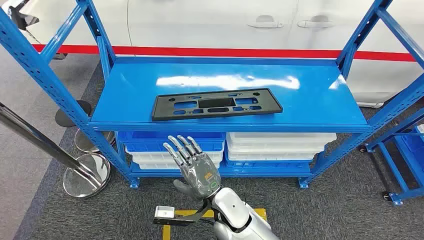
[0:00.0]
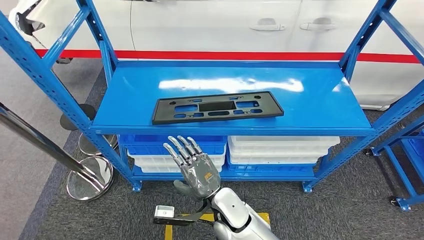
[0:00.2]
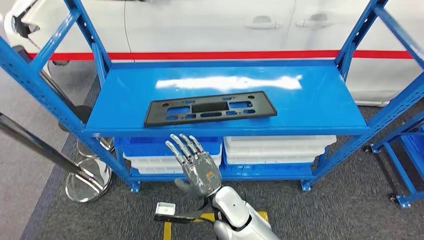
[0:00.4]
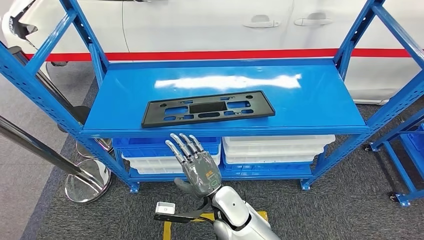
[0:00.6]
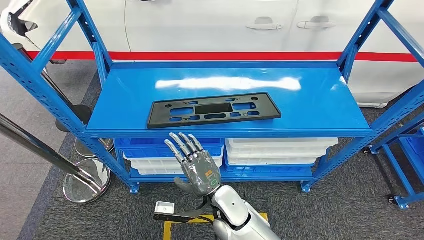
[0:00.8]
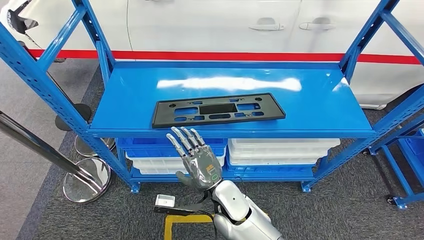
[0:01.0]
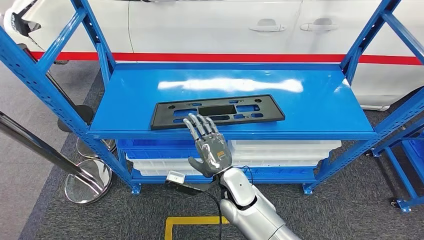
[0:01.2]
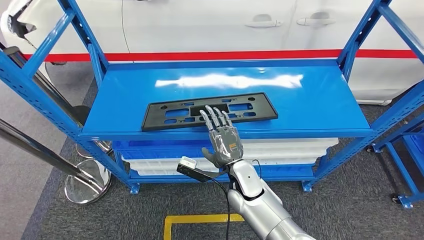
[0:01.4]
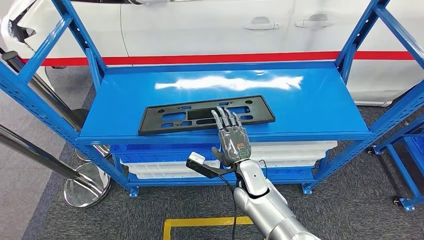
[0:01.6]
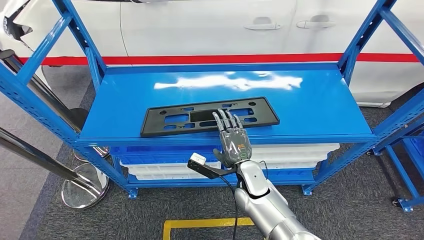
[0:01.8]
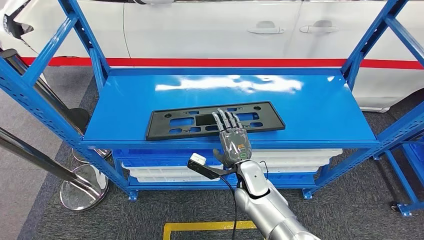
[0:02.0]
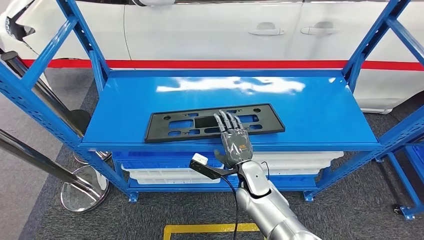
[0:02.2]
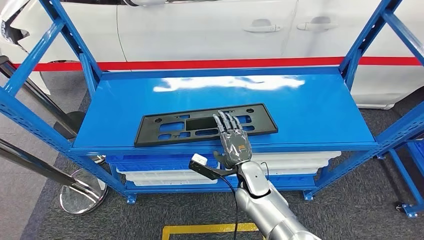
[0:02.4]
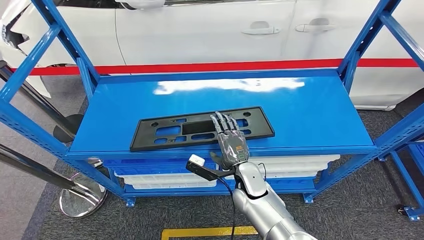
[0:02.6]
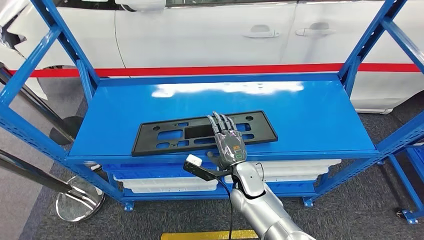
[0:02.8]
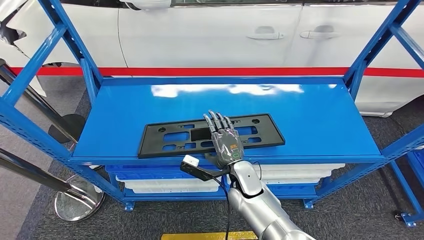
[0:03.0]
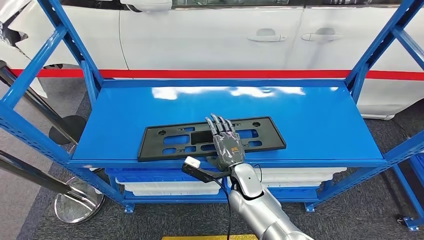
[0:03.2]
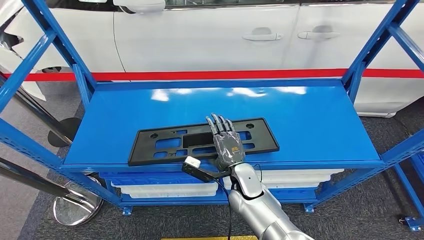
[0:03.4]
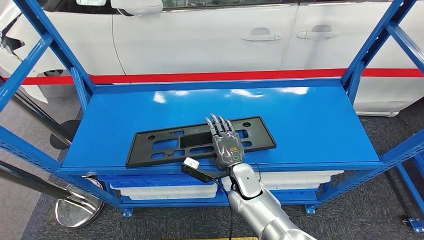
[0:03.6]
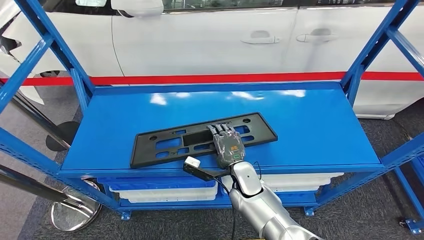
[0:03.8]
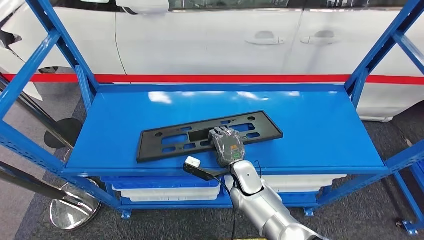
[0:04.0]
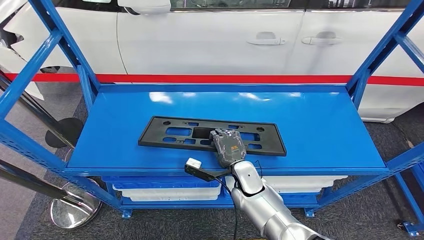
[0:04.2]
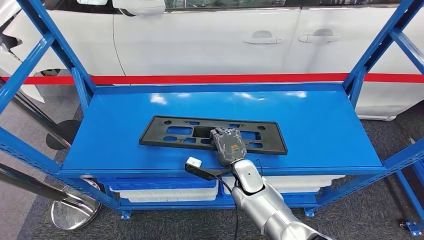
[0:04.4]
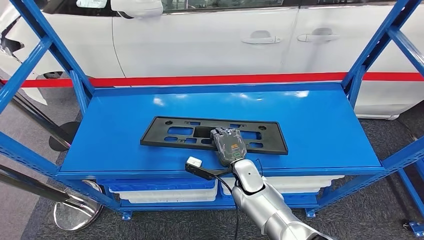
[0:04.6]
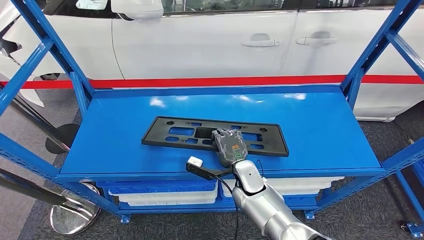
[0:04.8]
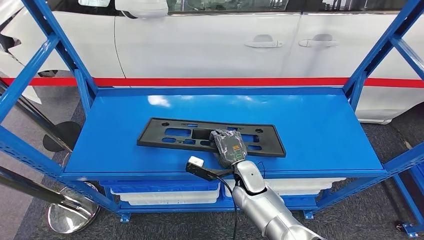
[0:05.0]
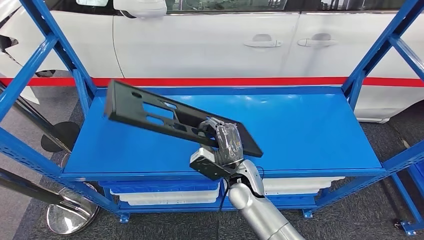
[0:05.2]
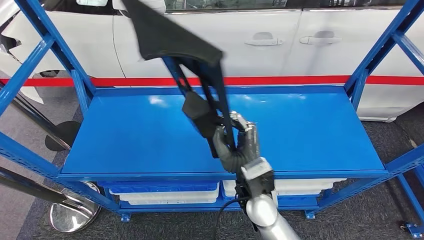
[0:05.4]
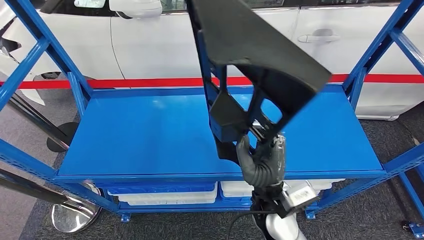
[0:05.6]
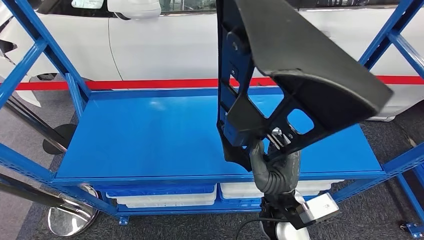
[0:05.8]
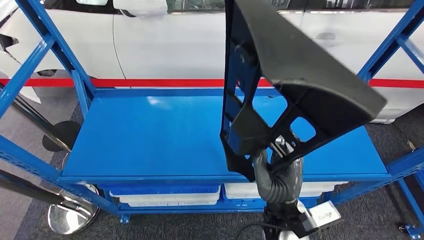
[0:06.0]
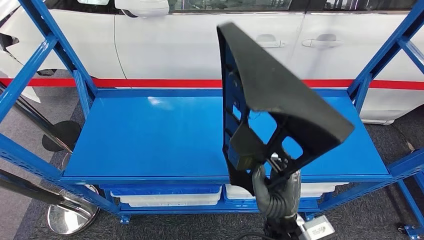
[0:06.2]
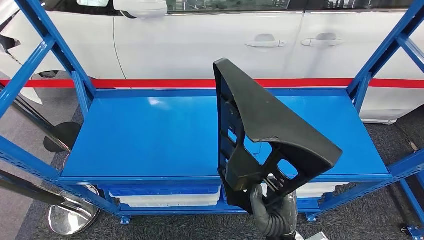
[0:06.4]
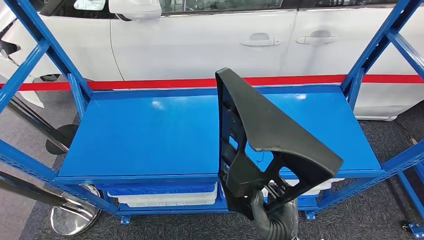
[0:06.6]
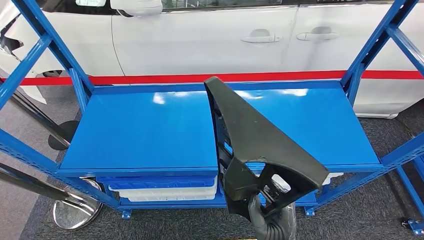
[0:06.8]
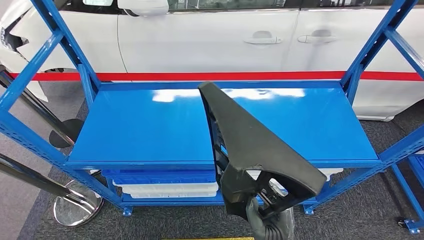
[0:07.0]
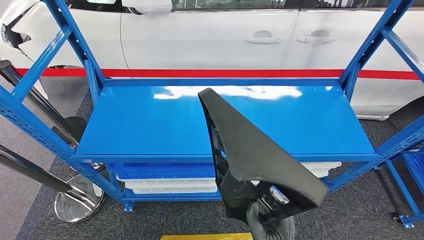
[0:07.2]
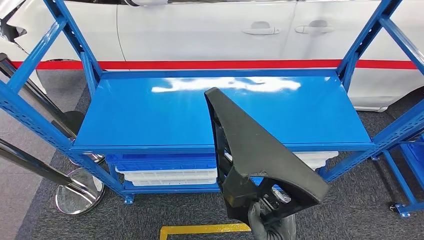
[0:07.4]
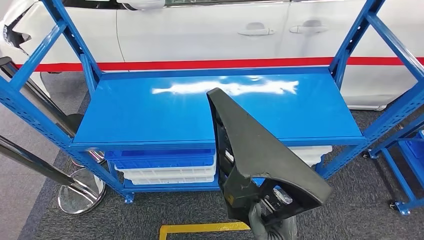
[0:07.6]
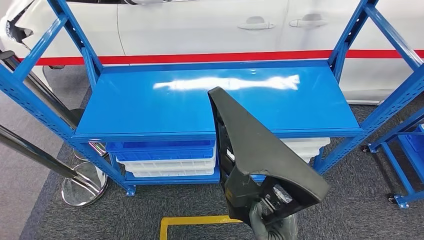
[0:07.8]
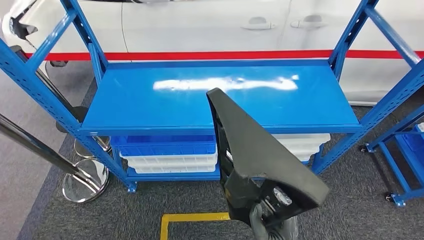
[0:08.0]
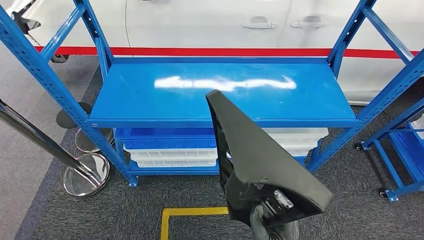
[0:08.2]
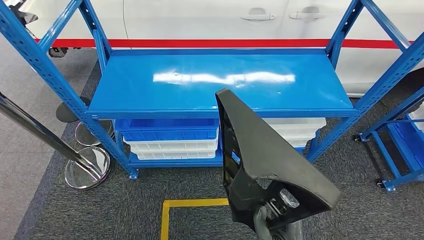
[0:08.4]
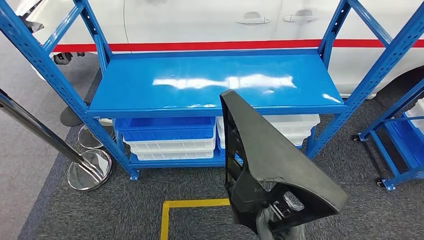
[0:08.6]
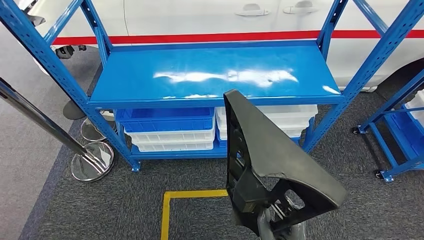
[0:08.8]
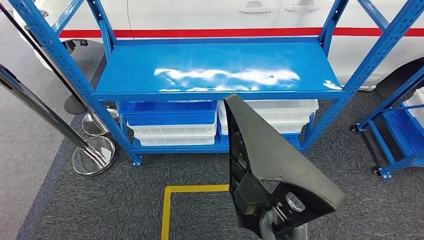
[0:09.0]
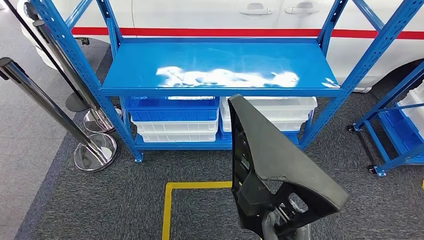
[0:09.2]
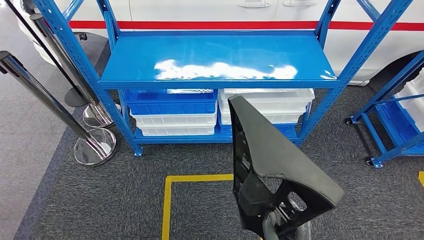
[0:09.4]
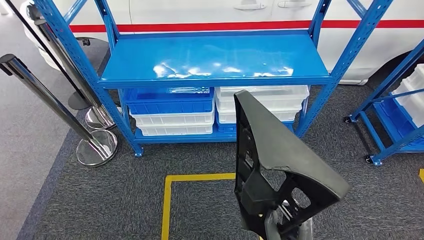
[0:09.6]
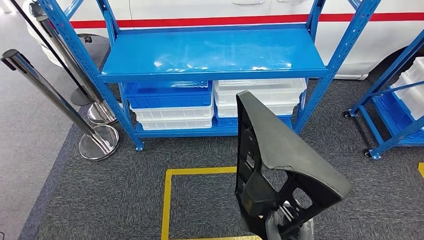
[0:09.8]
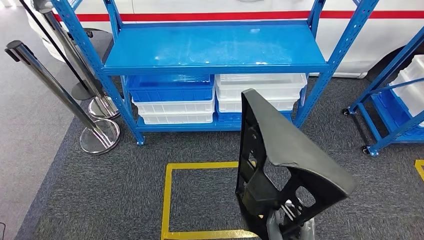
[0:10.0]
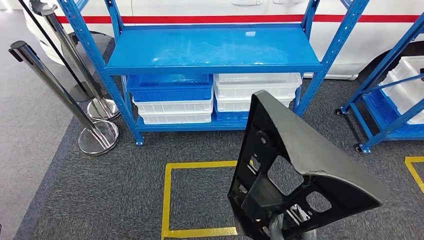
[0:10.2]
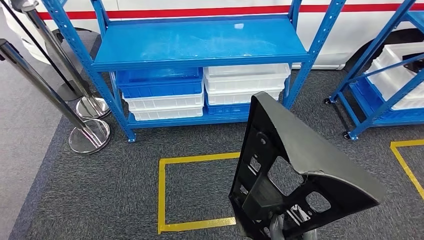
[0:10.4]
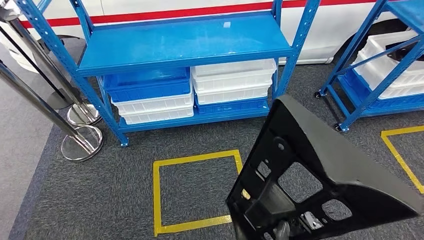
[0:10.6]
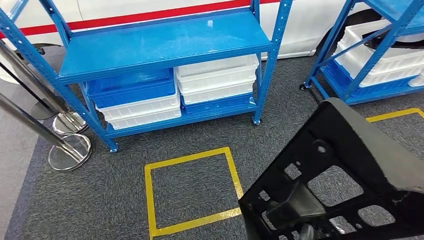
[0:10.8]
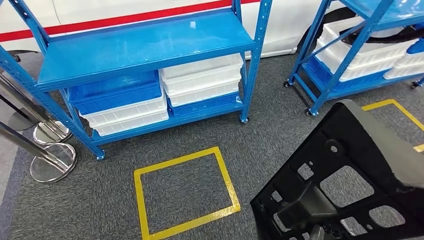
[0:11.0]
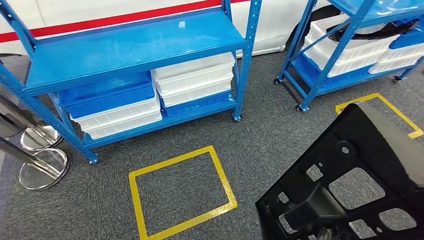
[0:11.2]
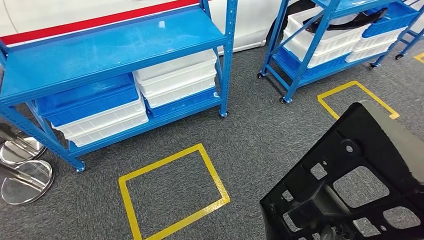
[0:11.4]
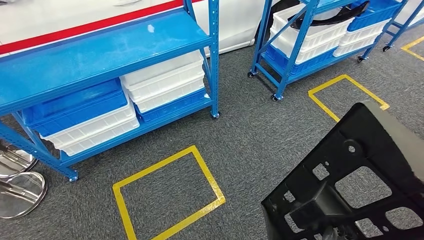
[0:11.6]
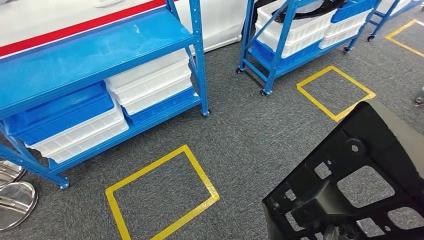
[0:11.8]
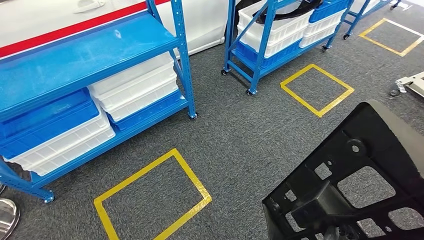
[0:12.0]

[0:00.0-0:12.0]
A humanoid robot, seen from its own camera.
Step, 0:00.0 to 0:06.2: Pick up the large material from the shelf.

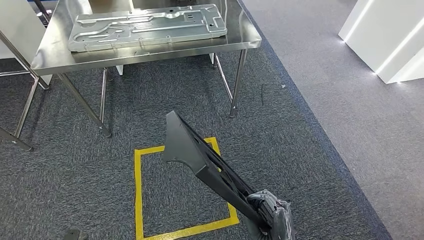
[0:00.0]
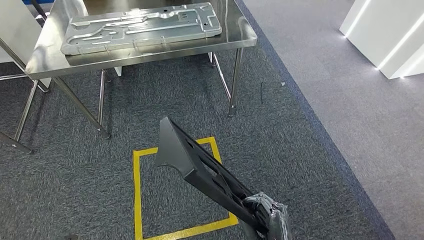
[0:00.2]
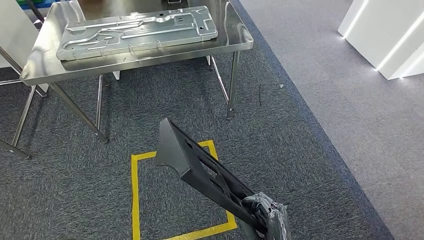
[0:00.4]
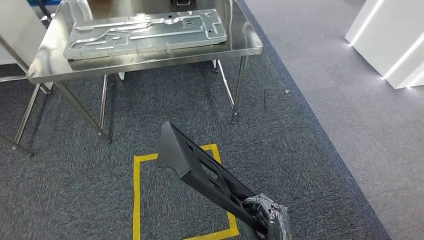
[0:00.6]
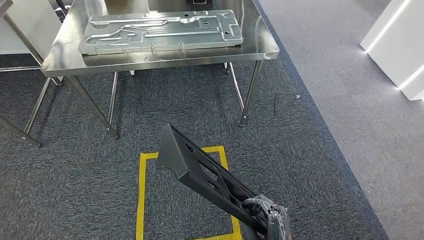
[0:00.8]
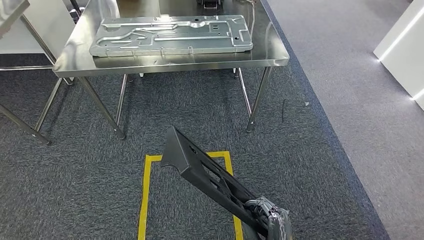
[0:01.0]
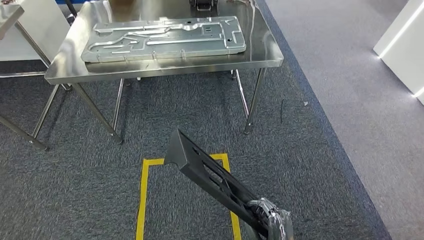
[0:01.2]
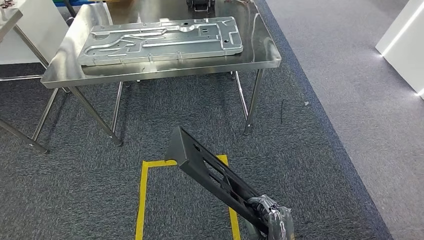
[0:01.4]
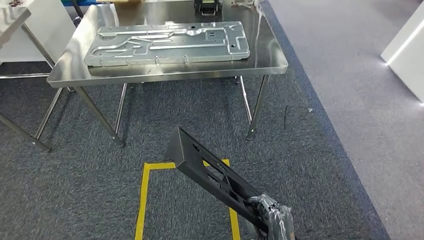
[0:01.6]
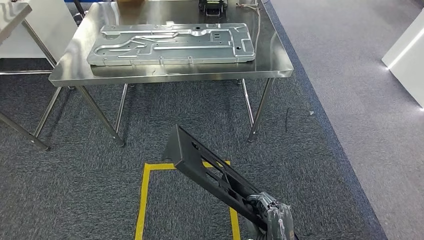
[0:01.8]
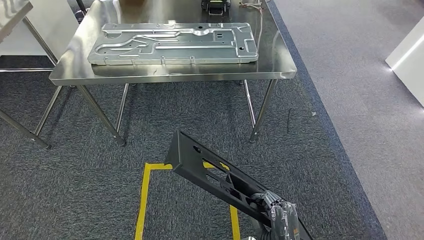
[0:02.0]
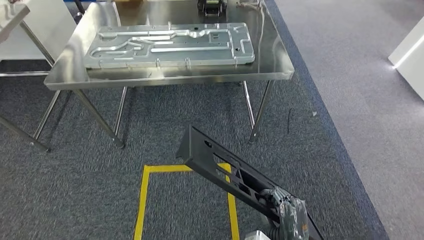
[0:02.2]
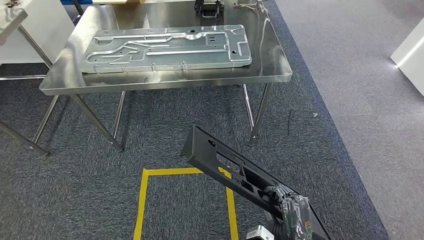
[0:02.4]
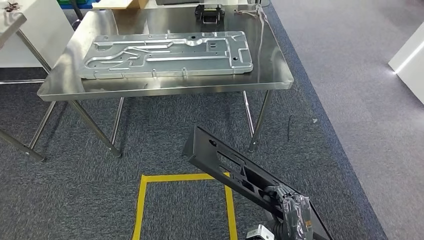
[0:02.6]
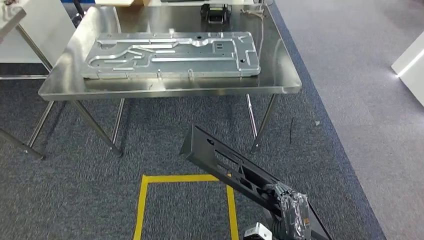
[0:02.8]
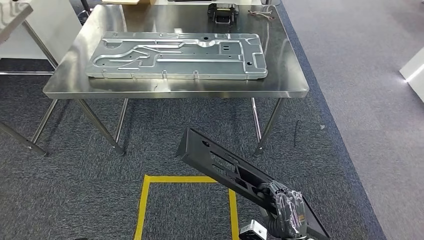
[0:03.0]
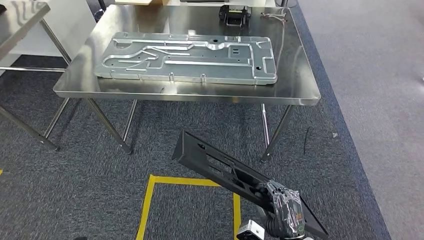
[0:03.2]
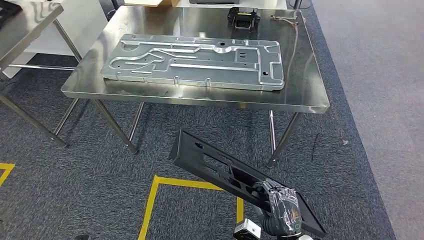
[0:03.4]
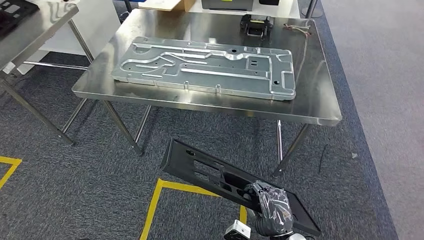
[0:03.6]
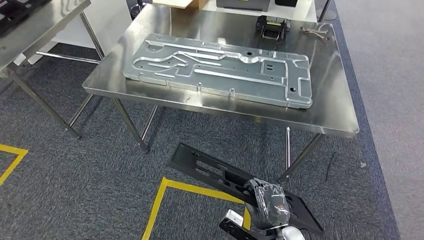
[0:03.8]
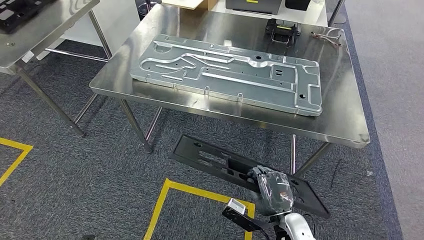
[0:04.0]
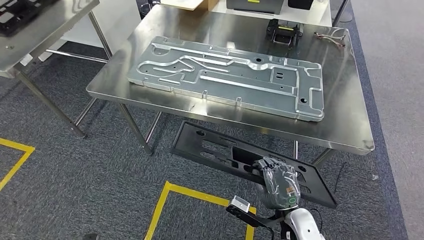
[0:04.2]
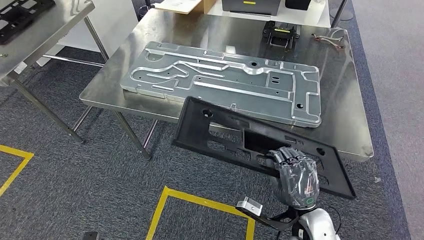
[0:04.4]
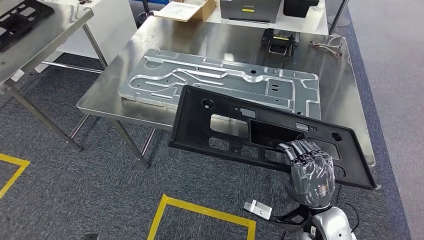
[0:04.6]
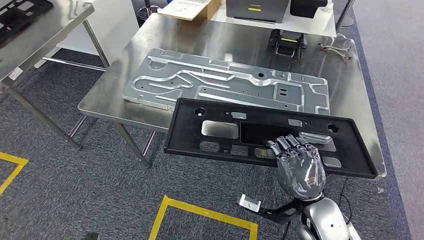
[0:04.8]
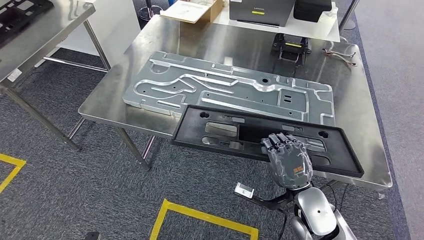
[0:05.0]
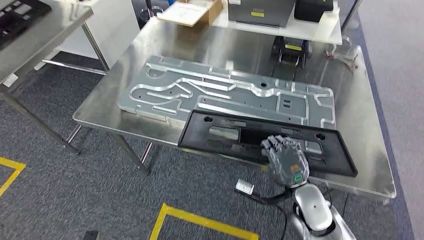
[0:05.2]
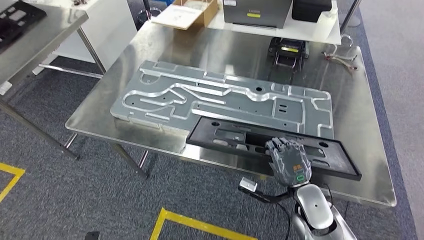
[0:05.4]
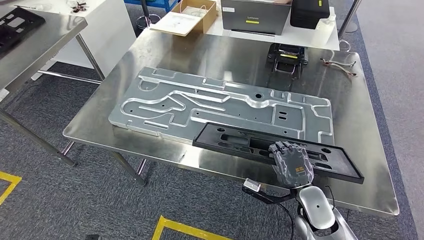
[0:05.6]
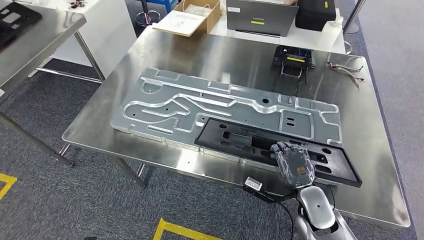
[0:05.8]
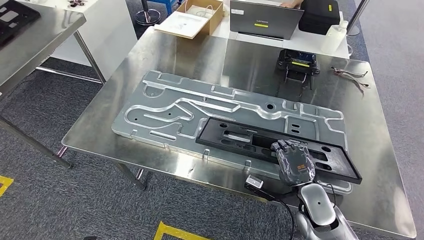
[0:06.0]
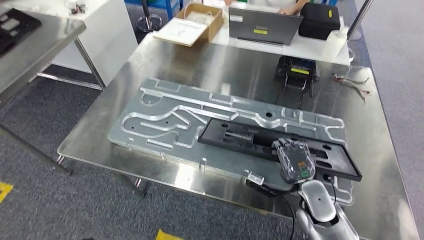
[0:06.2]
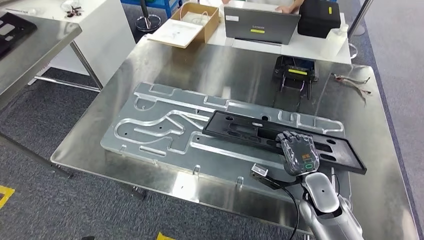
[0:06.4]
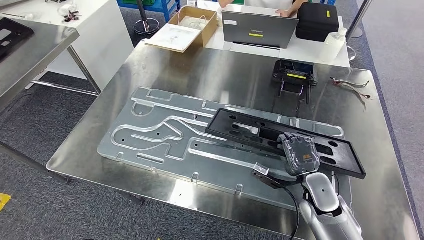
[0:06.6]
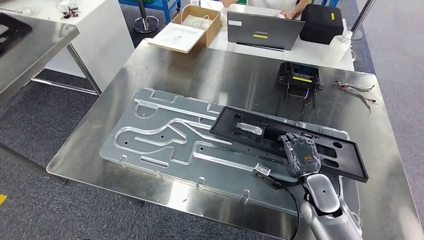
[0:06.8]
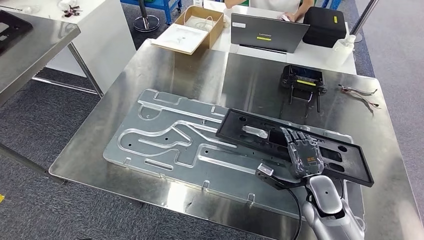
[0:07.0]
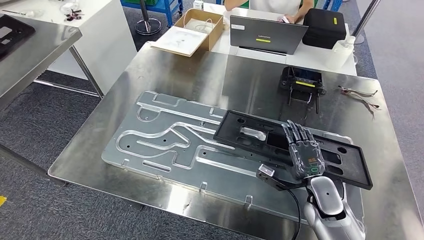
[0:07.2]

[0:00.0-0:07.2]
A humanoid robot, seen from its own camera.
Step, 0:00.0 to 0:03.8: Move the large material to the workbench.
